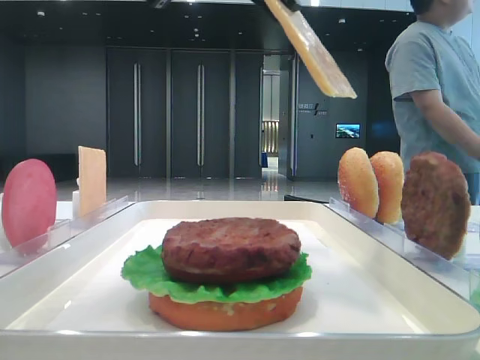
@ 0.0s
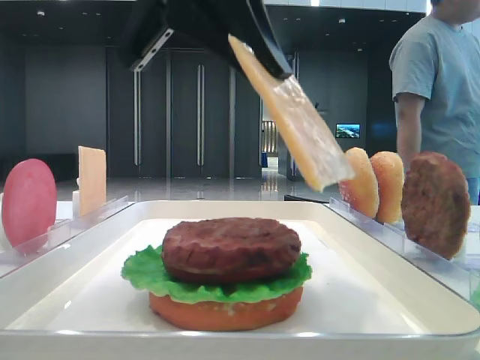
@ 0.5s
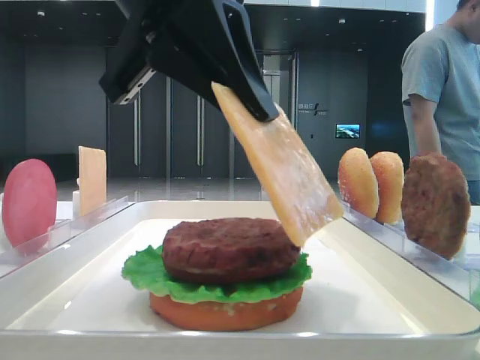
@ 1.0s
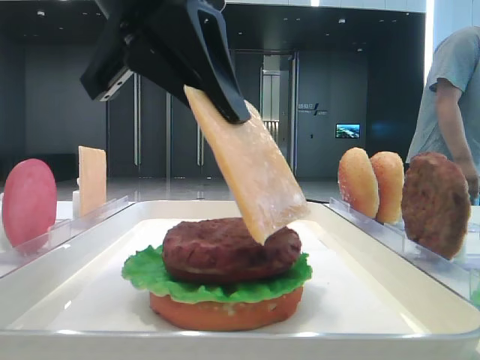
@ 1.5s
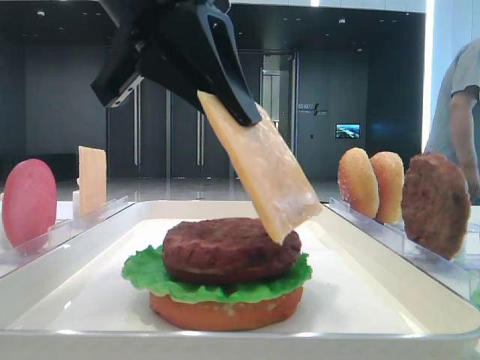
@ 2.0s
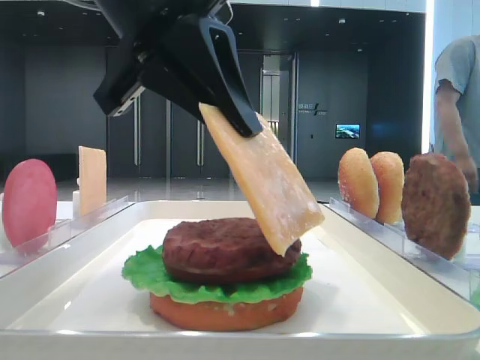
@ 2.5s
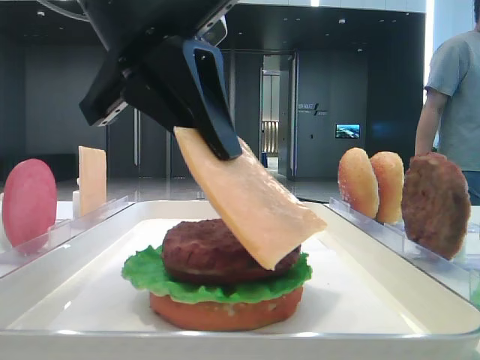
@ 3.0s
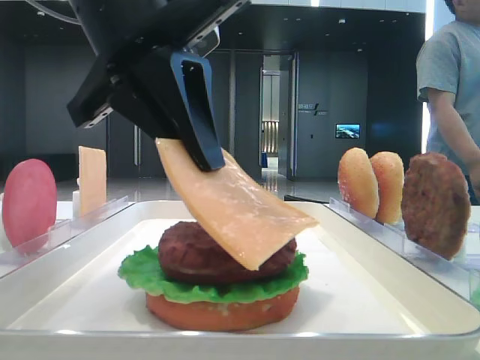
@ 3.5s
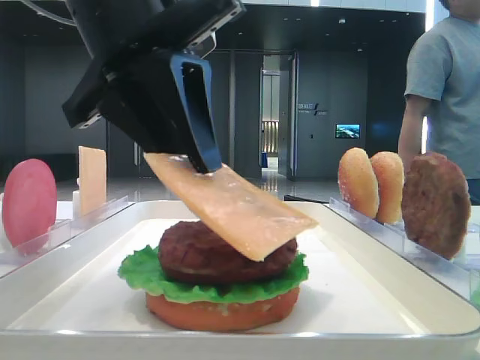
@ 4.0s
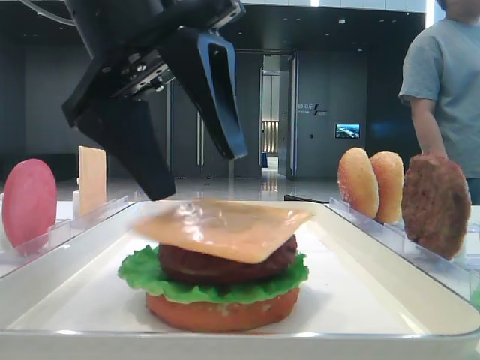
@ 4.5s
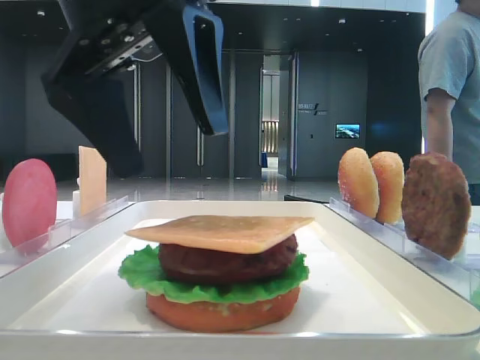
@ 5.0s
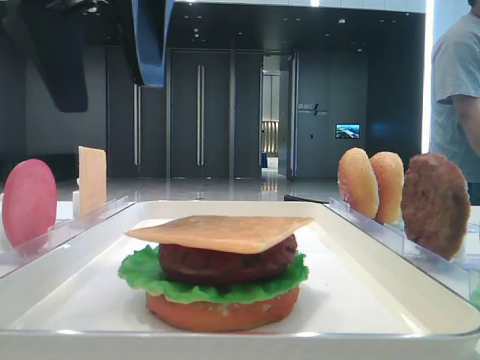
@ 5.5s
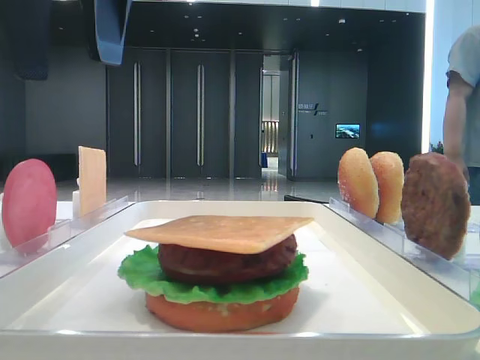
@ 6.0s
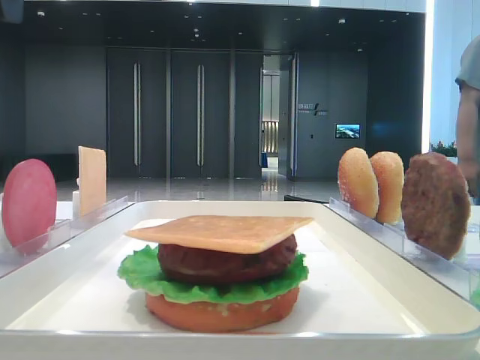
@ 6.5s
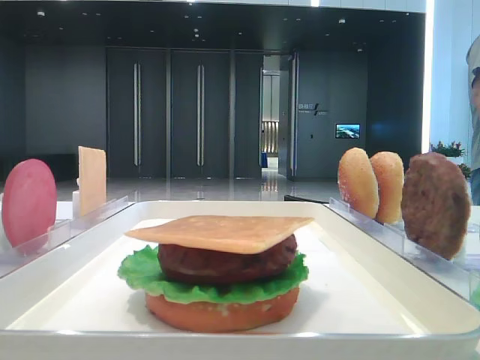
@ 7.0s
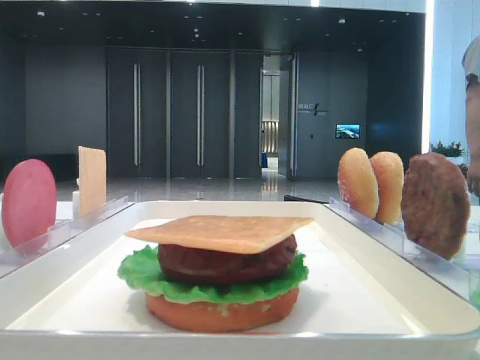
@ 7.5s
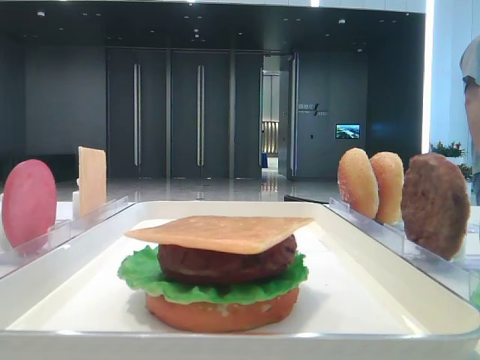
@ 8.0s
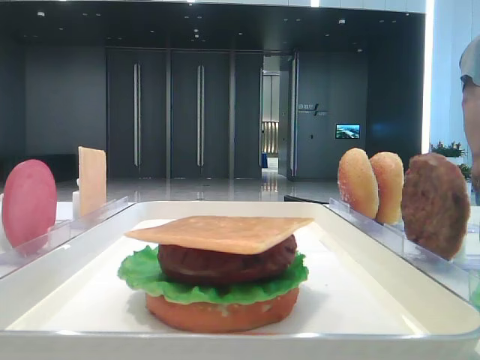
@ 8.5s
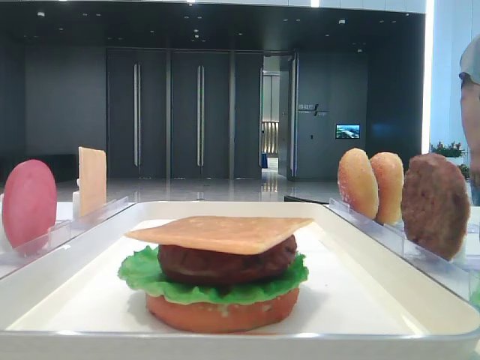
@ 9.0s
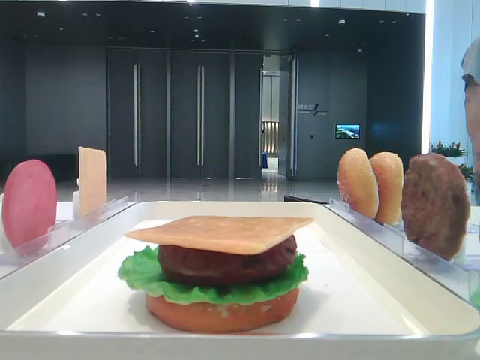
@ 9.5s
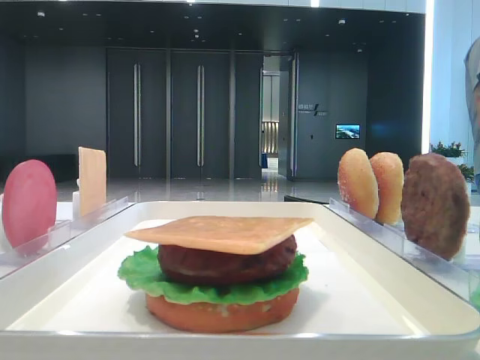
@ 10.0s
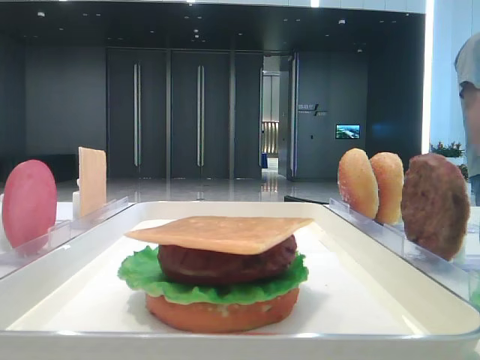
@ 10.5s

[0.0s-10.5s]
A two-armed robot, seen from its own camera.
Step, 0.0s to 4.0s: Place the cheese slice on the patty with the left hand.
0.0s to 2.0s: The left gripper travels downward by roughly 10 cm.
4.0s to 6.5s: The left gripper travels to the left and upward by roughly 20 cm, and opens its fingers.
6.5s to 8.5s: The left gripper travels backward and to the left by roughly 25 cm.
